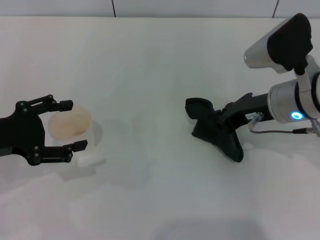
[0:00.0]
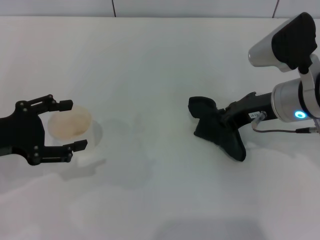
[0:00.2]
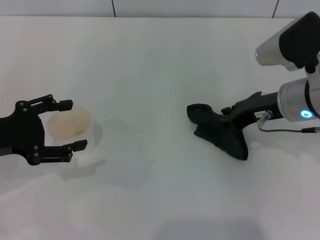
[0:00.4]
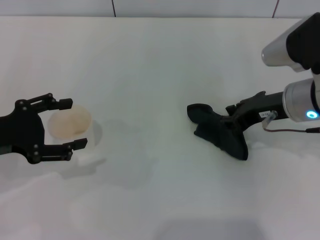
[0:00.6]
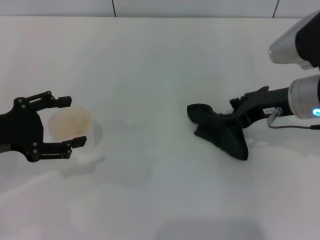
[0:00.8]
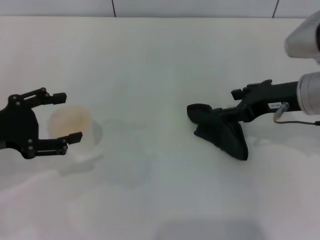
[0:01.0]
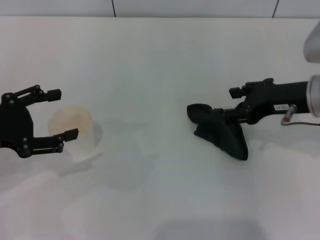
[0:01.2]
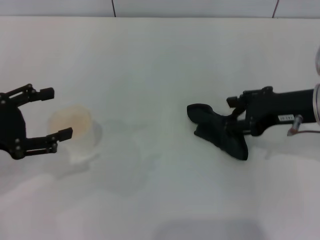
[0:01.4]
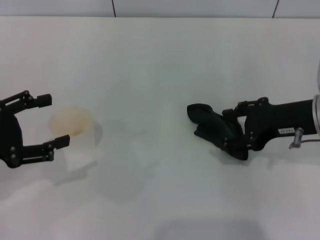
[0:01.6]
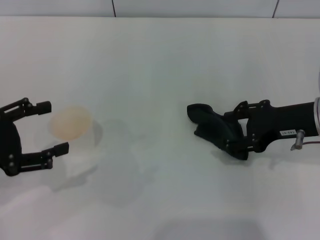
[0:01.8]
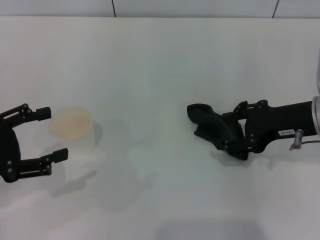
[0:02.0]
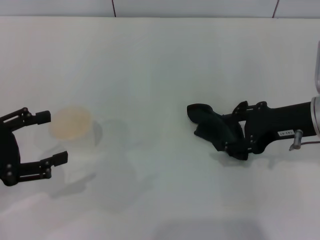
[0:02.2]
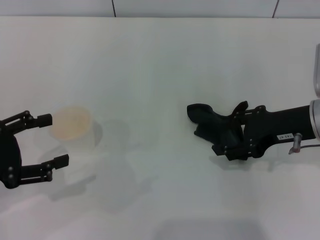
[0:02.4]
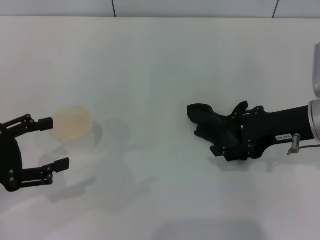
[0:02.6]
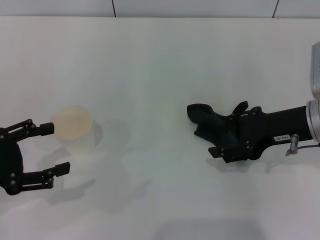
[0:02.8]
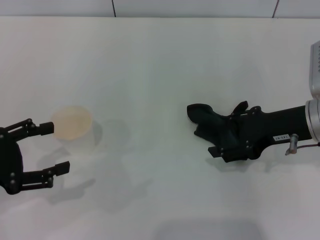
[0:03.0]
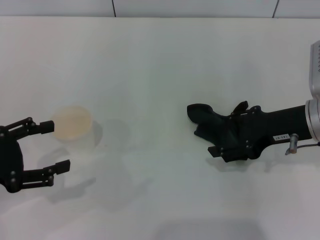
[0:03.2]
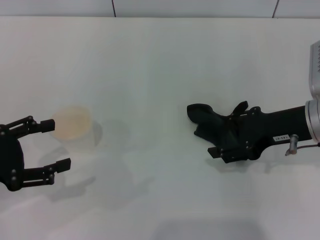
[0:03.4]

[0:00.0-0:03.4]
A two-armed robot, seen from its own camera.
Step, 0:00.2 to 0:01.8: Place the rag on the table with the right gripper.
0:00.0 to 0:01.6: The right gripper moves to the right, approximately 5 cm, and opens.
0:01.6 to 0:03.4: The grippers move only a little.

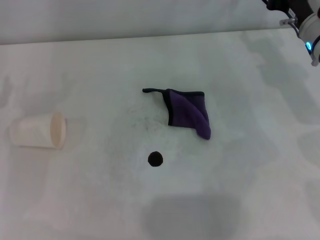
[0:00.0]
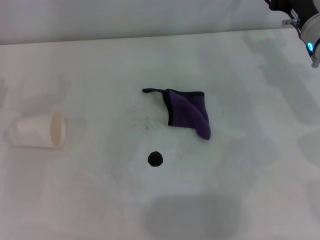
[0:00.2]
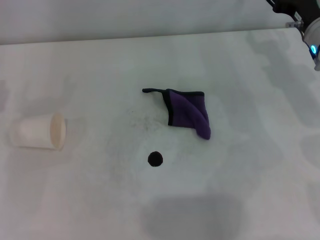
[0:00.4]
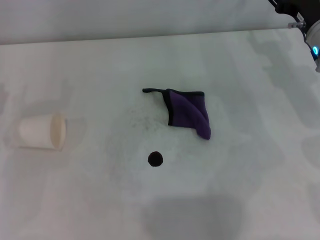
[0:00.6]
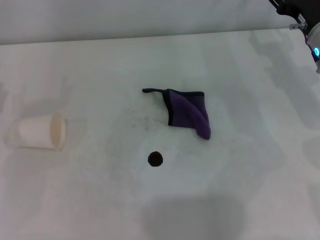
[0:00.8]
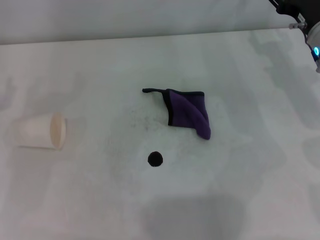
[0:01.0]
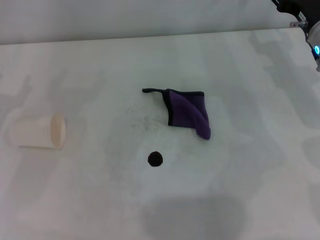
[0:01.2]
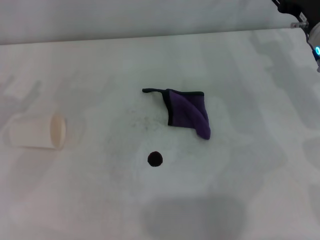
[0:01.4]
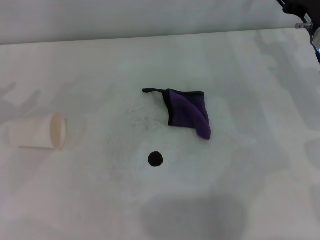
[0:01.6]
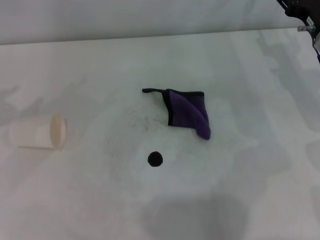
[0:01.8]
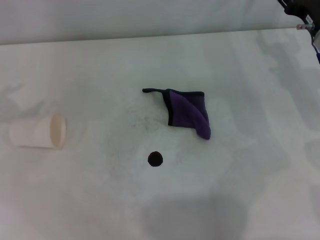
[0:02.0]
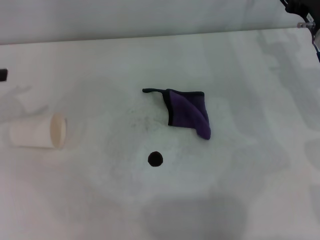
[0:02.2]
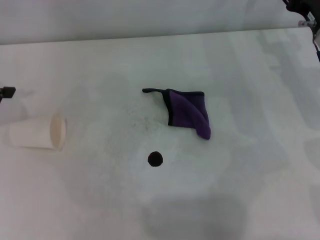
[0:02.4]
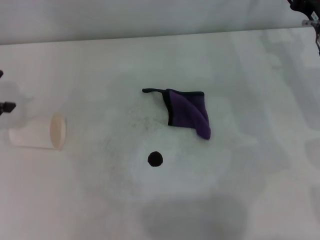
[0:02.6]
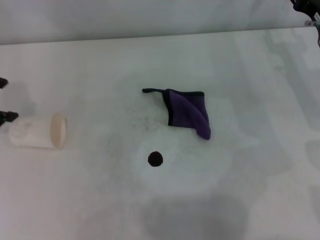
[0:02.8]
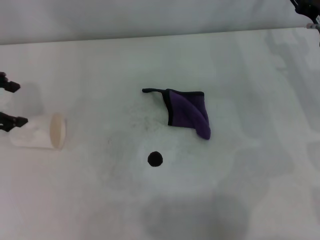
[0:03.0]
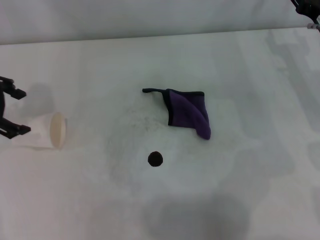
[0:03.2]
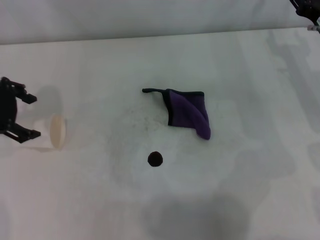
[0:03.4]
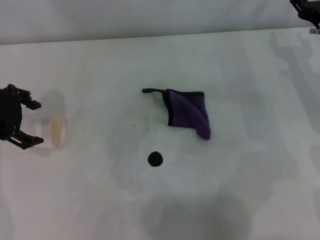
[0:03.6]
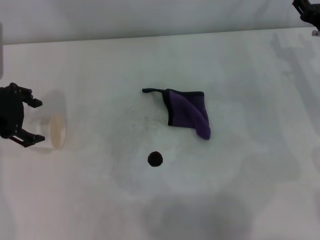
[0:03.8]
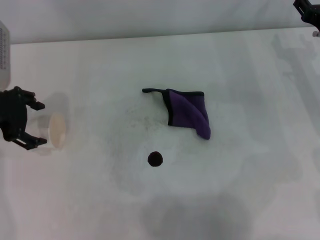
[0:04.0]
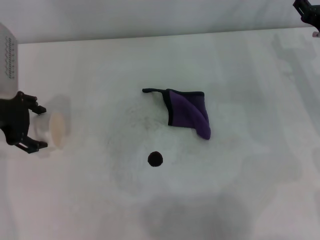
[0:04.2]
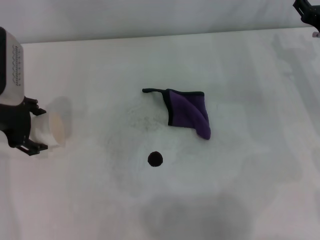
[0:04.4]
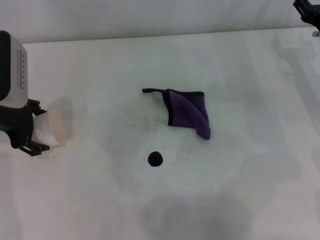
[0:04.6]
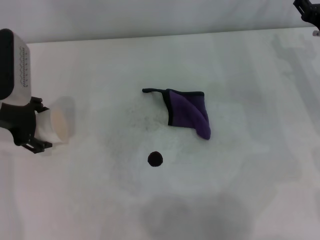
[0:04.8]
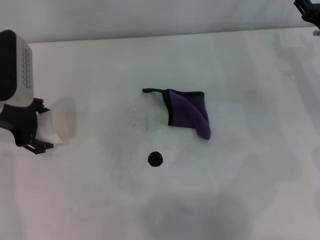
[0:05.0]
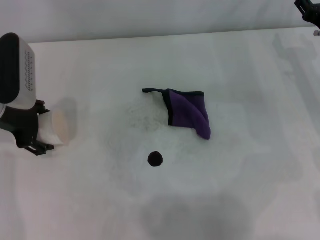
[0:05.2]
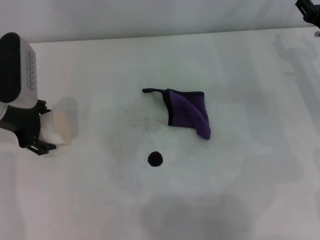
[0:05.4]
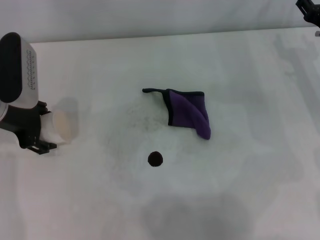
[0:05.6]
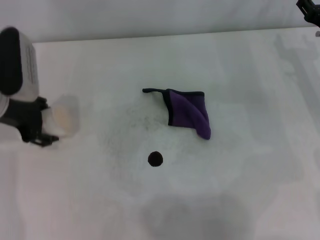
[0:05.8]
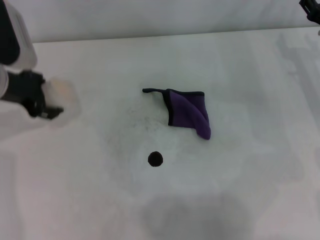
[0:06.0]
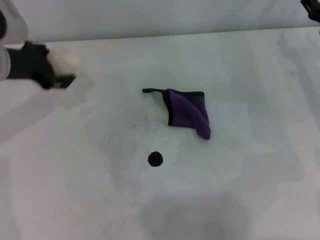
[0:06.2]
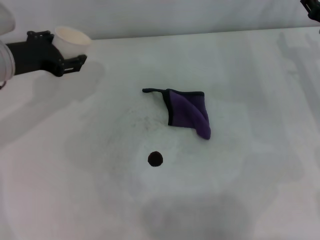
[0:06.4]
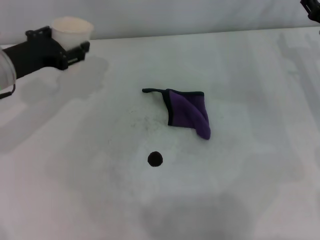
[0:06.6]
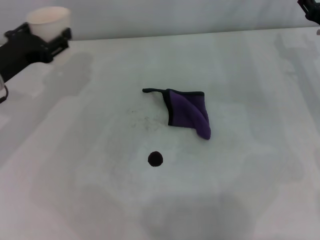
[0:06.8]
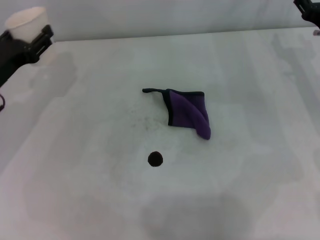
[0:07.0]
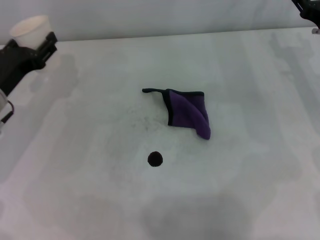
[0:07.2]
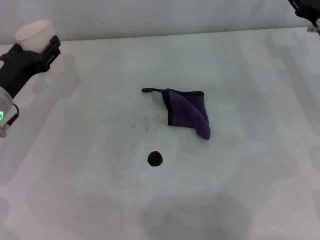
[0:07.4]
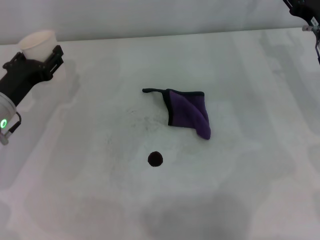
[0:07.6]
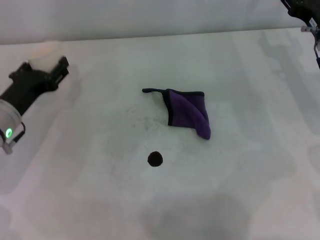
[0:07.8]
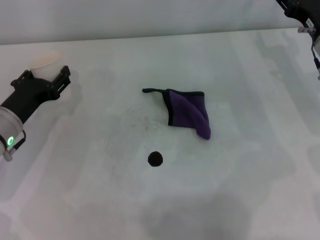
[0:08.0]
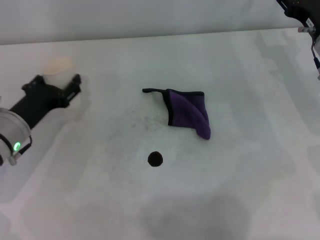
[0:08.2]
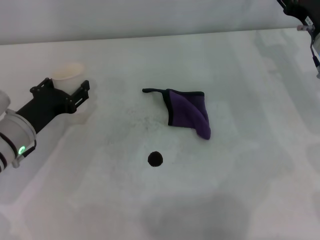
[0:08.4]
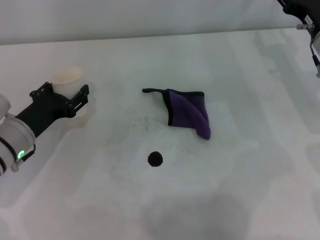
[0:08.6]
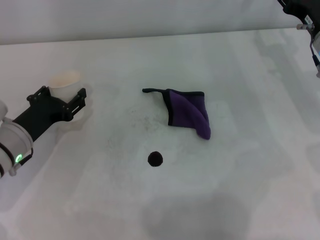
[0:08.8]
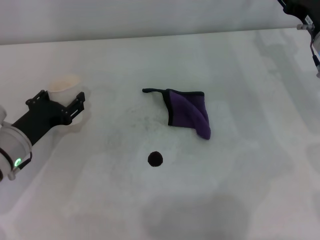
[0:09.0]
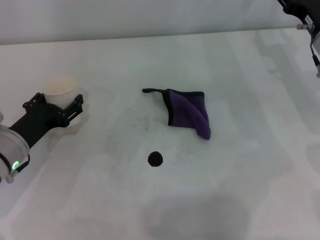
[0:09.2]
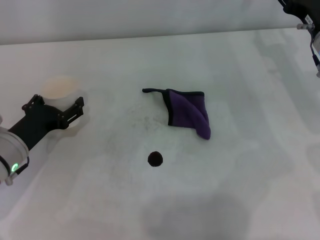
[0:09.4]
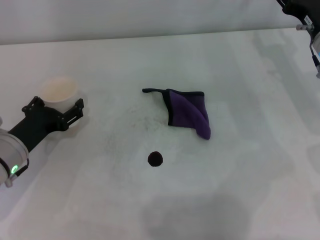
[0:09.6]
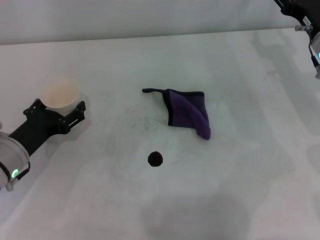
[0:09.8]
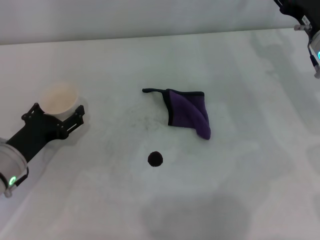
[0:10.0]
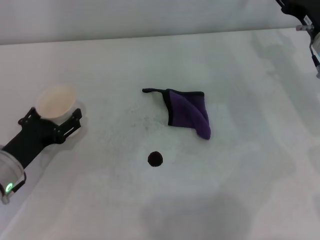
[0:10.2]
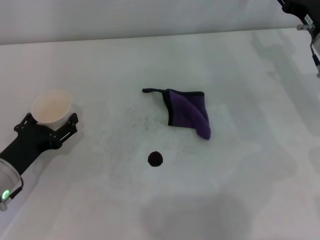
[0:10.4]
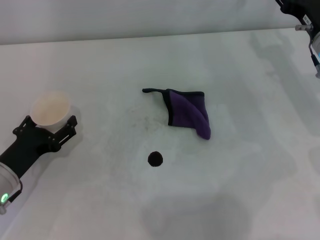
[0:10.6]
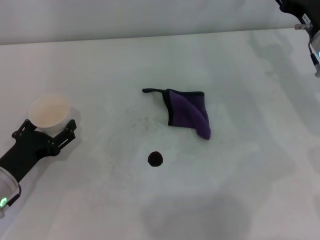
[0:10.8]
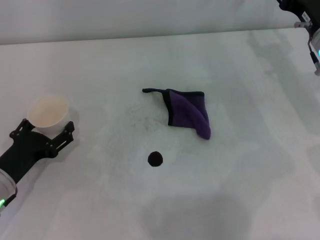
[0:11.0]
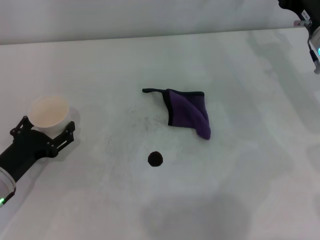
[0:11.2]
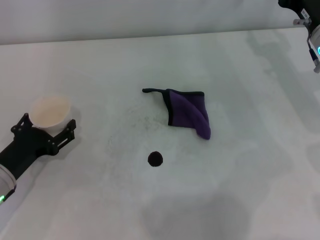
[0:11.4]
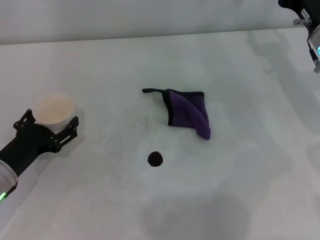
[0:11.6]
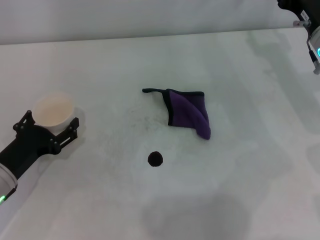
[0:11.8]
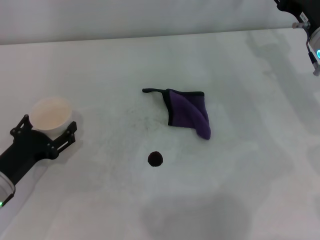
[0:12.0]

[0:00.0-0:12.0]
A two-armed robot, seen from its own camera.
Step, 0:00.0 to 0:04.4: Grasp the paper cup with the left gripper.
0:01.6 to 0:03.0: The left gripper travels upward, to the right and forward by roughly 10 cm.
0:03.0 to 0:04.4: The left gripper is displaced downward and to the right by roughly 10 cm.
0:04.4 to 0:06.0: The left gripper closes up.
0:06.0 to 0:07.6: The left gripper heads downward, covering some 10 cm.
0:07.6 to 0:09.0: The left gripper ends up some 5 cm from where it was.
0:09.0 to 0:10.4: The left gripper moves roughly 5 cm, and opens up.
0:10.4 to 0:12.0: There are only small adjustments of the grippers.

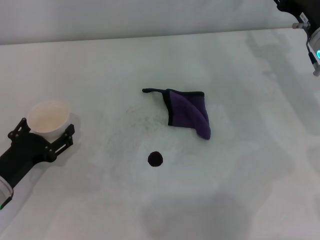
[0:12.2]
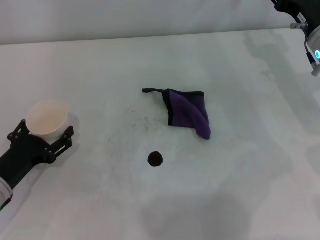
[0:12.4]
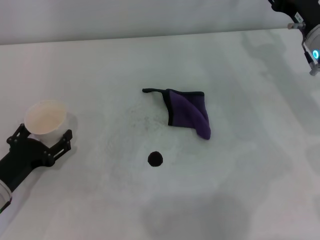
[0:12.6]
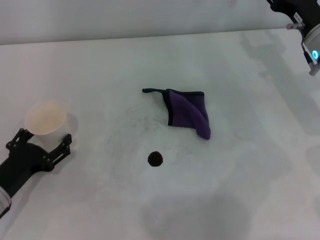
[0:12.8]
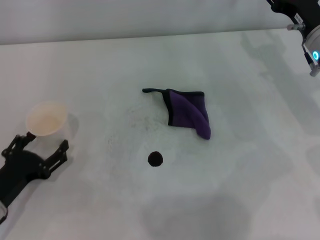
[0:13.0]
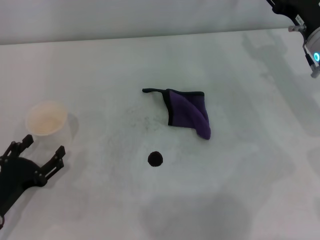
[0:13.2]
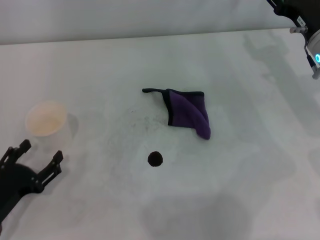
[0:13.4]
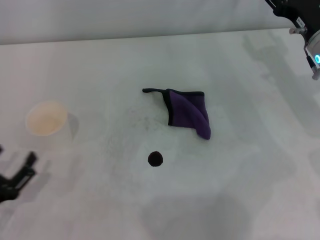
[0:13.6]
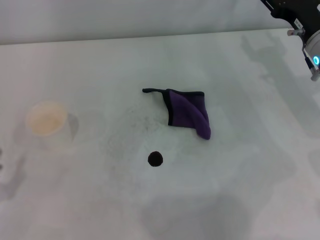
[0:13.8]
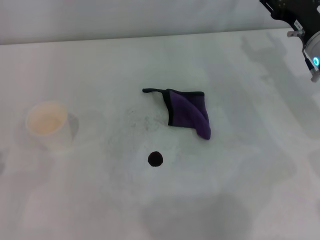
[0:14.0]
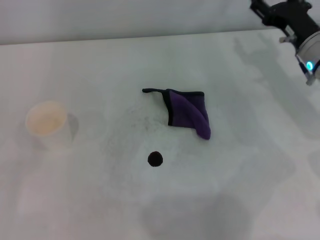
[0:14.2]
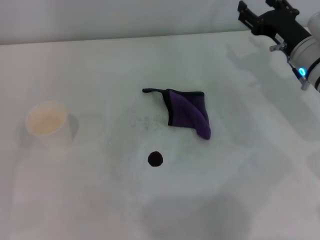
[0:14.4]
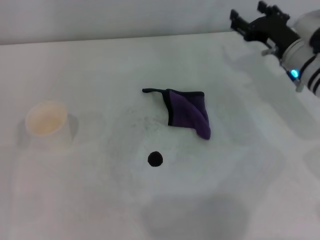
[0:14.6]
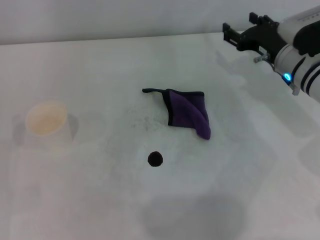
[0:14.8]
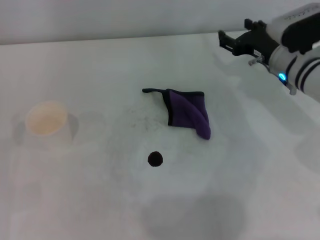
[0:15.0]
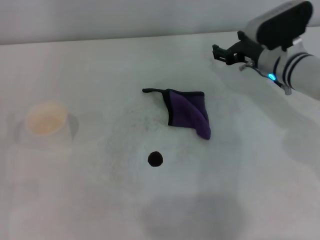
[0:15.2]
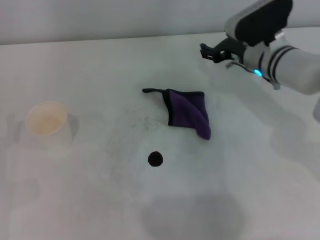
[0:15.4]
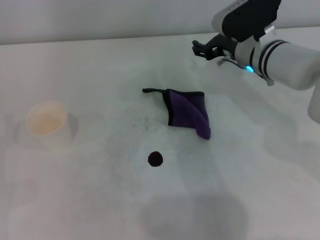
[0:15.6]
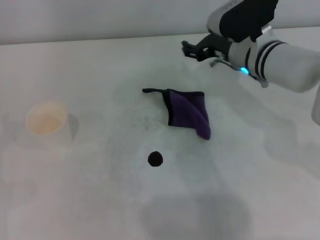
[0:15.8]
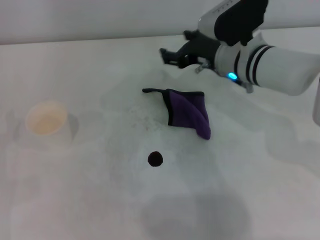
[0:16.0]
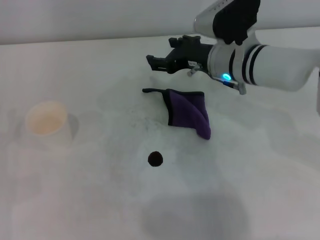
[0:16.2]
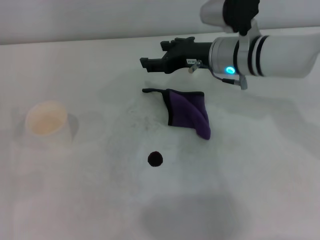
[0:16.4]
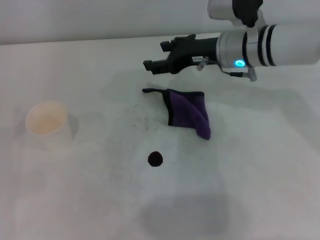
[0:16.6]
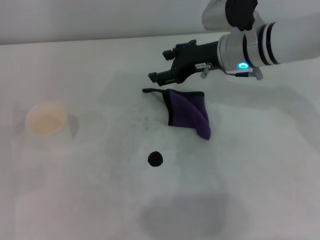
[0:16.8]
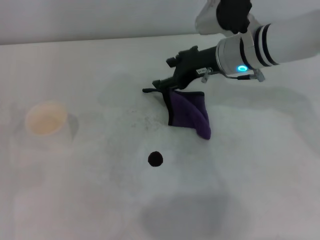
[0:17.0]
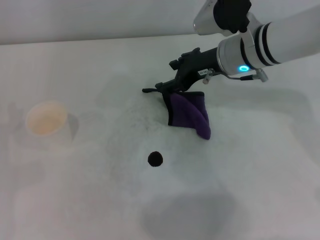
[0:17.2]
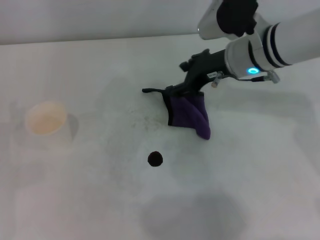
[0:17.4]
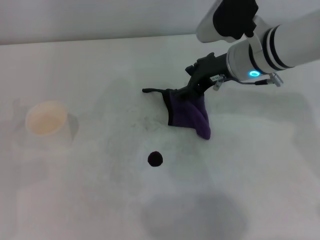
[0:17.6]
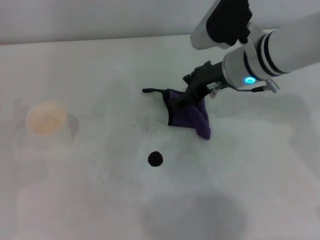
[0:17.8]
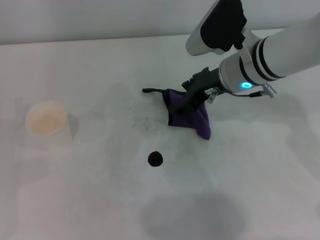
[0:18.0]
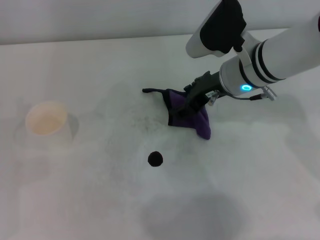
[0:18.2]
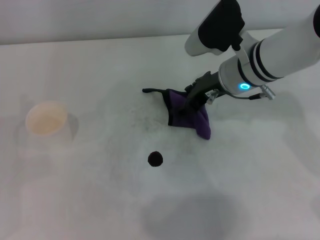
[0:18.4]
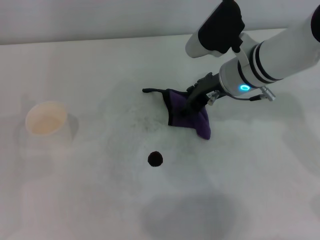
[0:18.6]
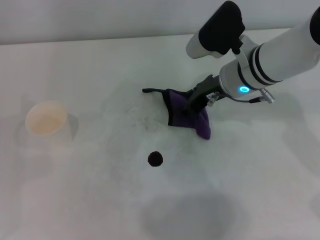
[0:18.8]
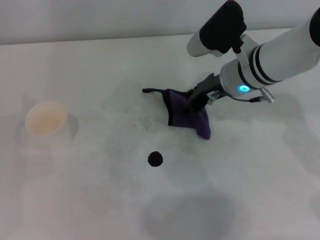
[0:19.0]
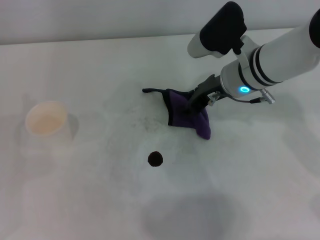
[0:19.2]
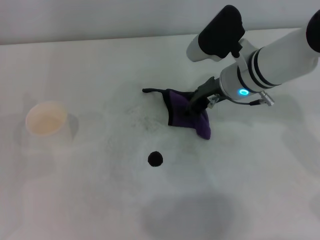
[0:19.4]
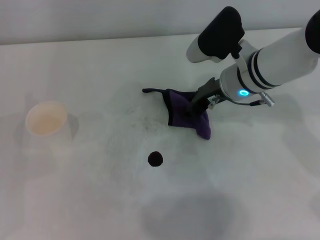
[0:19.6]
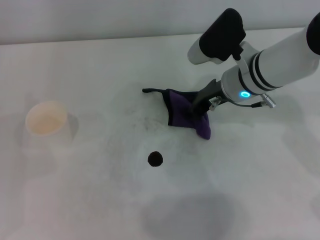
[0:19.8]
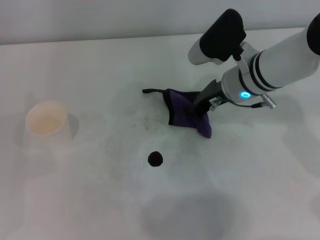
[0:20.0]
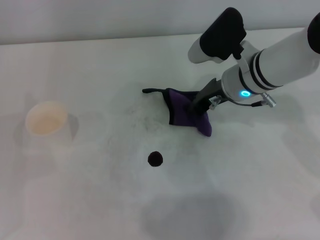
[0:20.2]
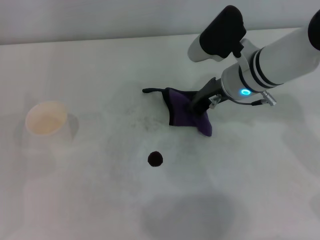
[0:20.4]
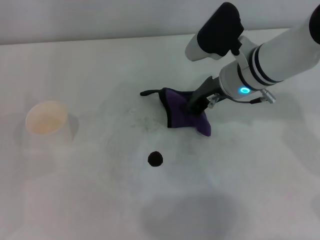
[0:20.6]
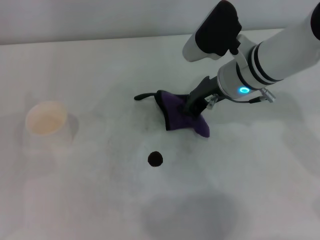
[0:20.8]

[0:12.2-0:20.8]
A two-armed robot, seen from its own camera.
Step, 0:12.8 to 0:20.0: Grasp the rag with the right gripper.
0:12.2 to 0:13.6: The left gripper travels backward by roughly 10 cm.
0:13.6 to 0:15.0: The left gripper heads forward and to the left, covering about 10 cm.
0:15.0 to 0:16.6: The right gripper is displaced to the left and upward by about 10 cm.
0:18.0 to 0:19.4: The right gripper closes up.
0:19.4 to 0:20.8: The right gripper closes.
